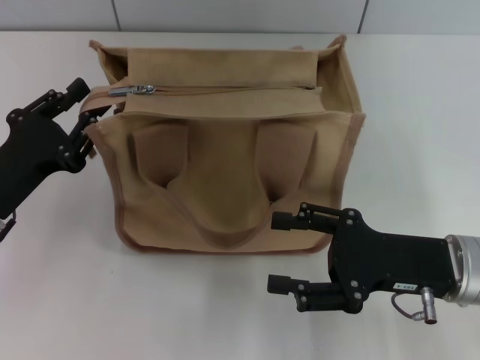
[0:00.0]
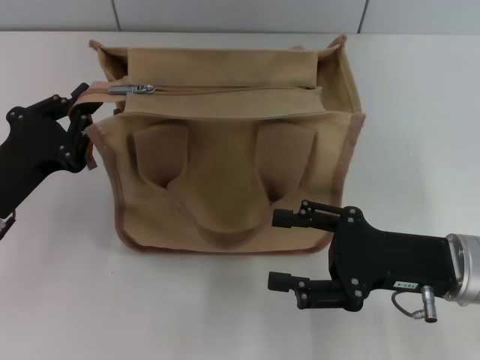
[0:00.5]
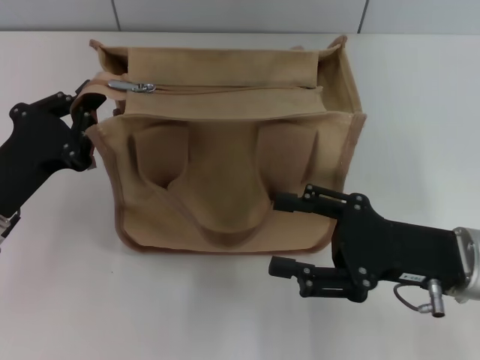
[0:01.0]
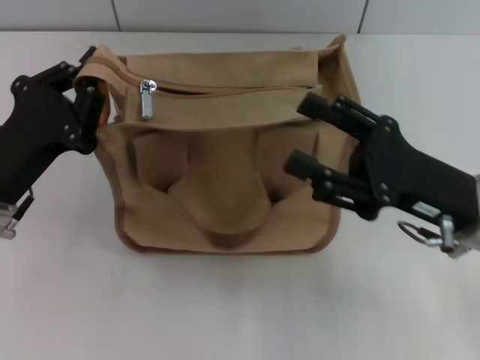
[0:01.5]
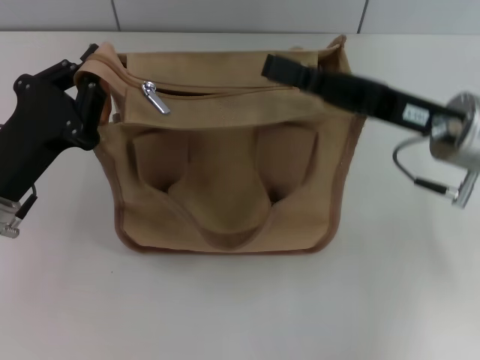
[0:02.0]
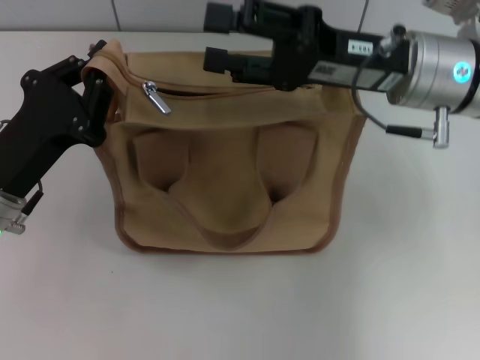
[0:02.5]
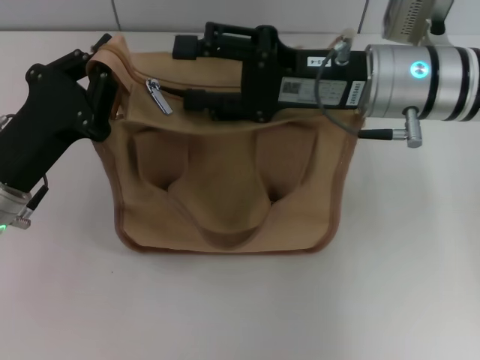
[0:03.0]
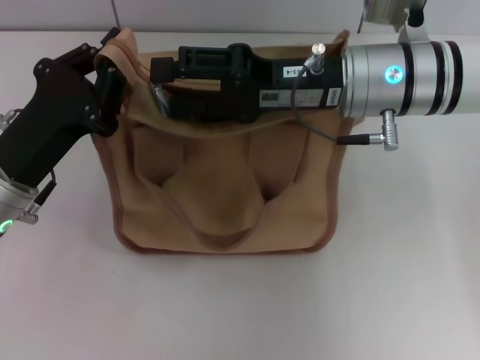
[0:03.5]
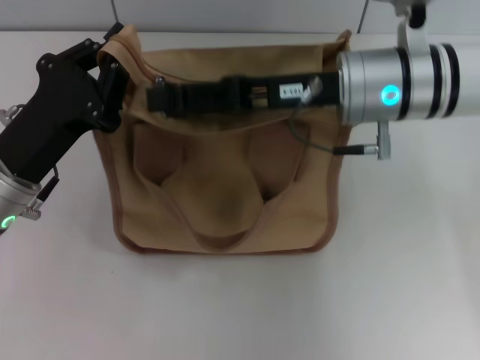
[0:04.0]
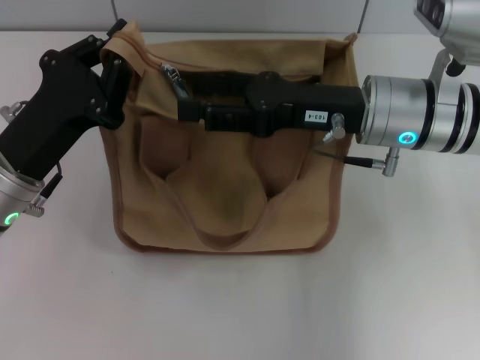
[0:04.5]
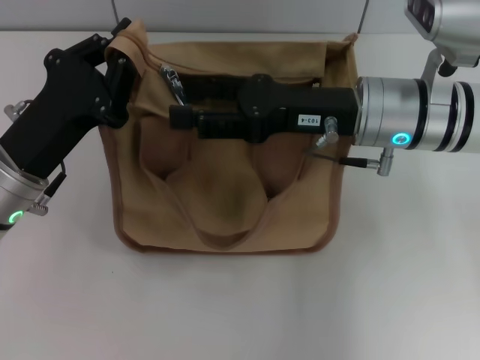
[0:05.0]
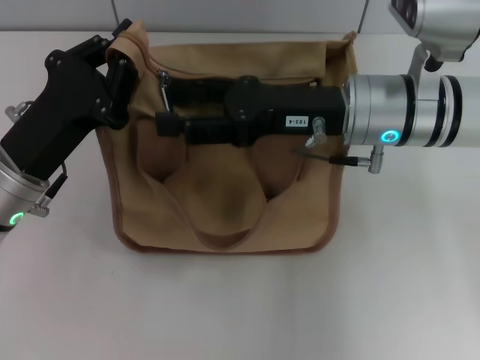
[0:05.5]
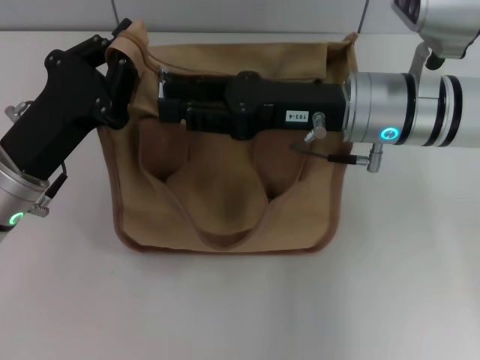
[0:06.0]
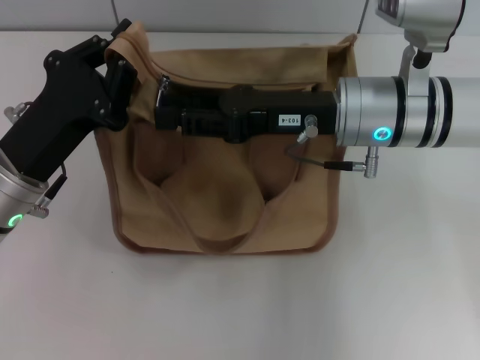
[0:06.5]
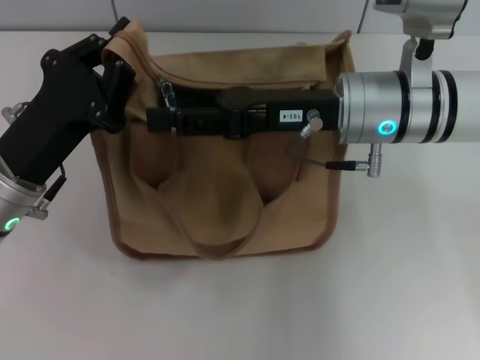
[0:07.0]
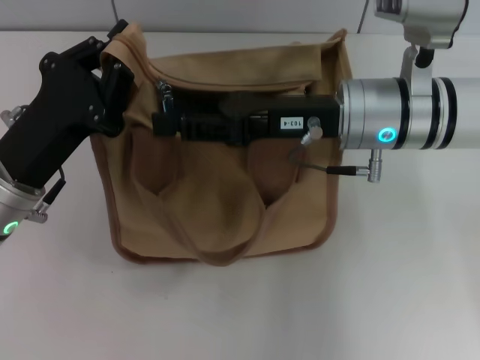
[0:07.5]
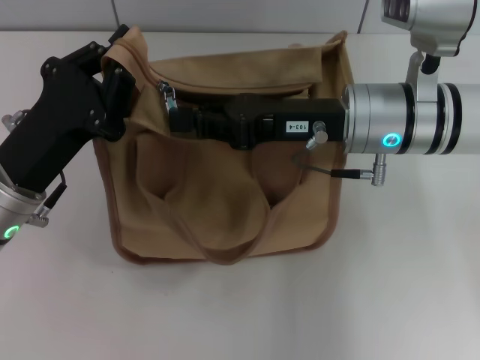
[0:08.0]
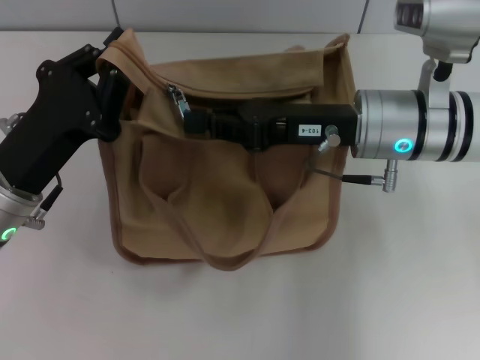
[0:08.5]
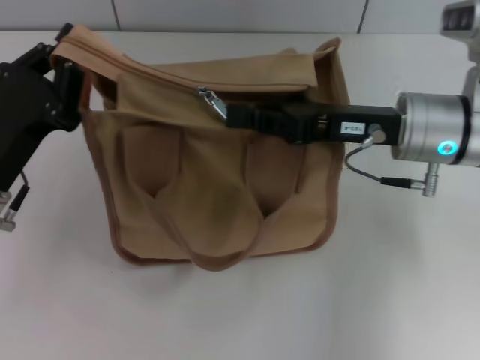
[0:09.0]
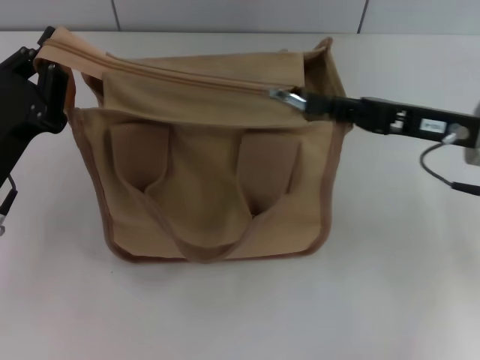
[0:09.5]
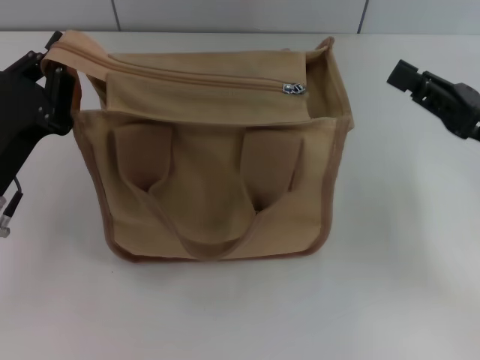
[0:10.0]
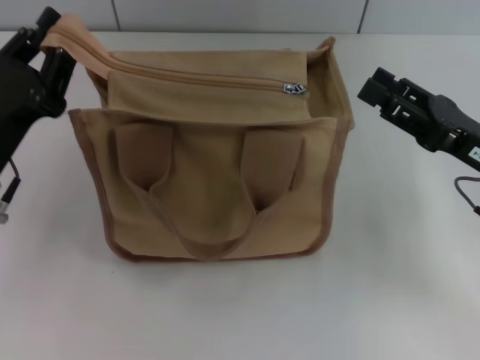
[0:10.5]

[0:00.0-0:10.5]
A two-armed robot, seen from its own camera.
Step, 0:00.0 to 0:09.5: Pull up the zipper with your right hand.
0:00.0 to 0:02.0: The right gripper goes approximately 10 cm forward and upward; the left gripper closes.
0:02.0 to 0:04.0: The right gripper moves to the left, roughly 10 cm.
0:04.0 to 0:06.5: The right gripper closes.
0:06.5 to 0:08.5: The right gripper closes its fingers.
0:08.5 to 0:10.5: The right gripper moves to the right and backward, roughly 15 cm, and opens up.

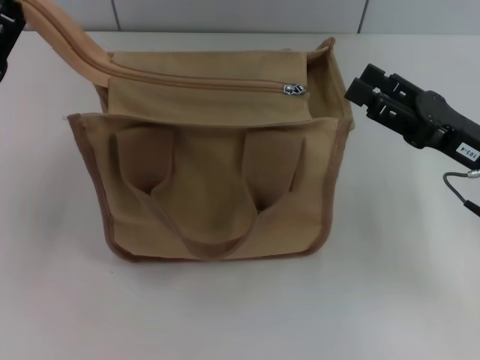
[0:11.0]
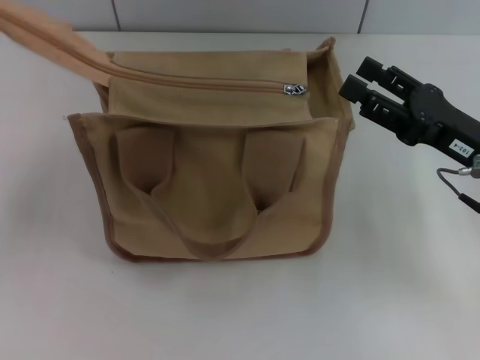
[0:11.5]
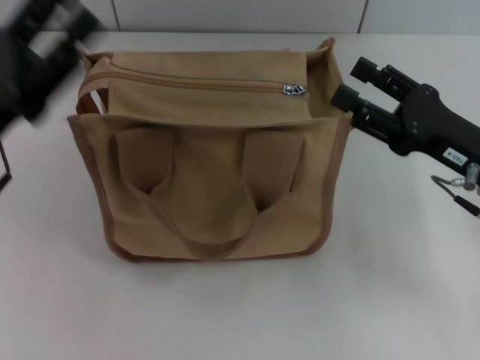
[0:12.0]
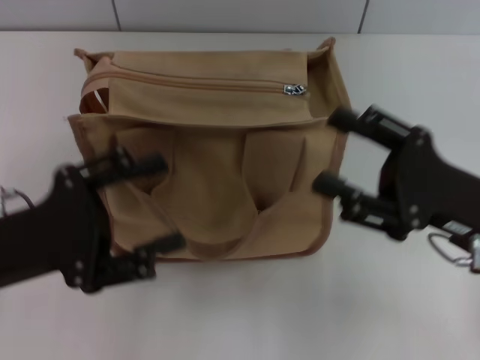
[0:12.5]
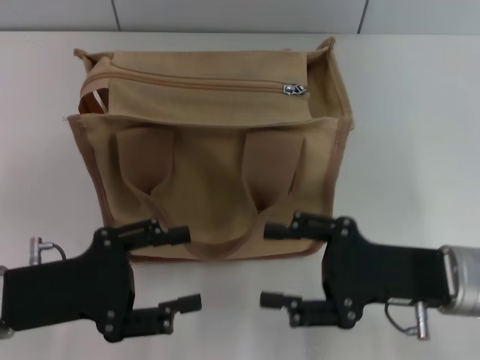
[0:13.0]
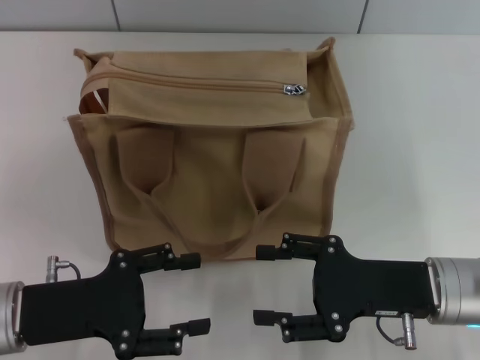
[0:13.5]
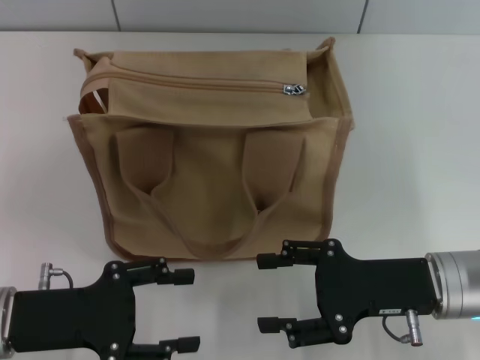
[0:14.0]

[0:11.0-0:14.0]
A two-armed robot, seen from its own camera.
0:12.5 to 0:14.0: The left gripper moves roughly 5 cm.

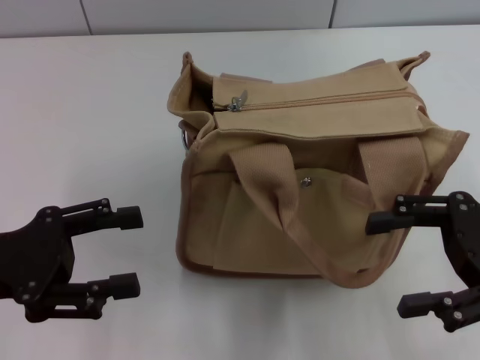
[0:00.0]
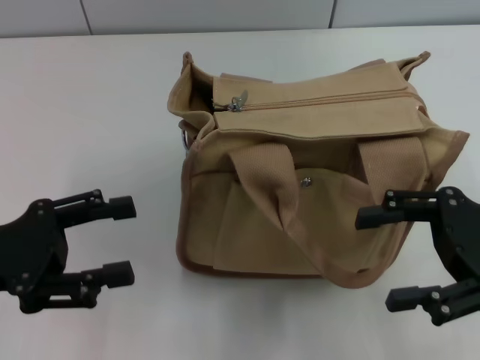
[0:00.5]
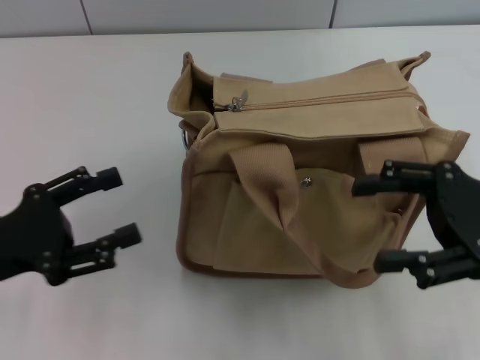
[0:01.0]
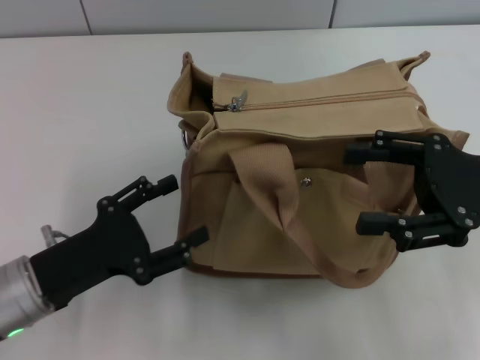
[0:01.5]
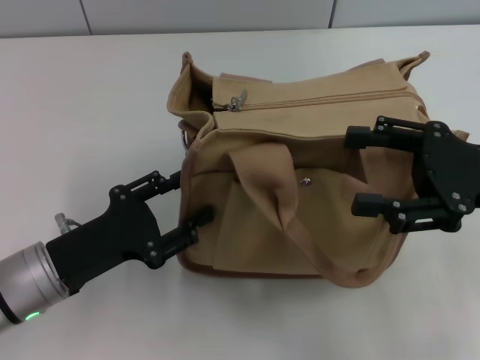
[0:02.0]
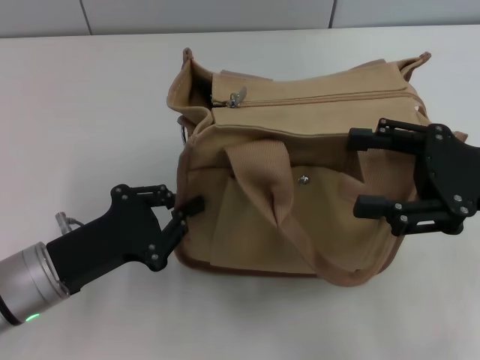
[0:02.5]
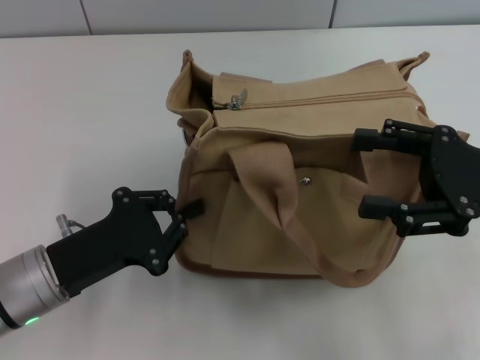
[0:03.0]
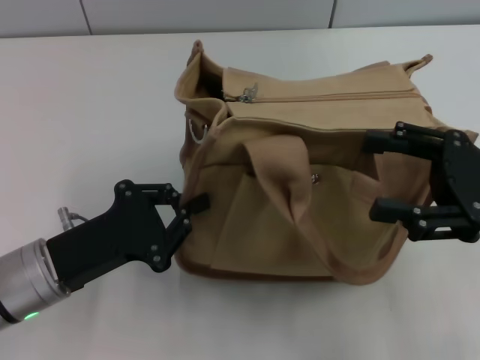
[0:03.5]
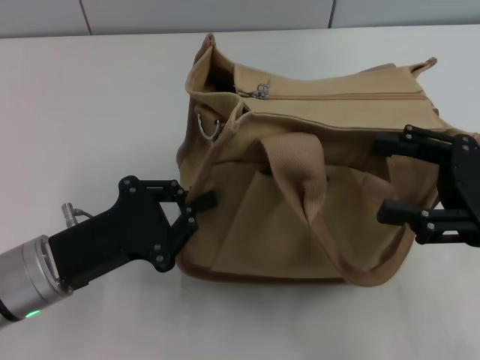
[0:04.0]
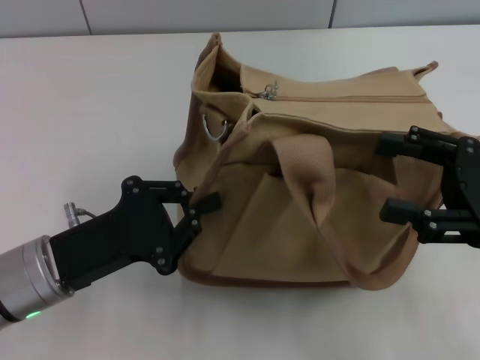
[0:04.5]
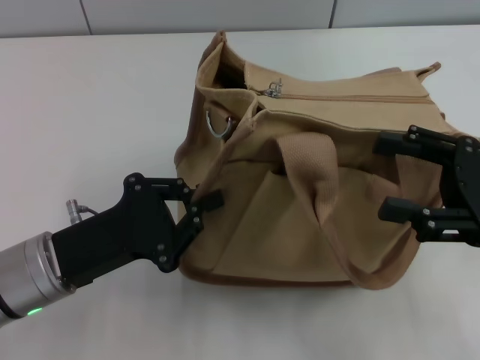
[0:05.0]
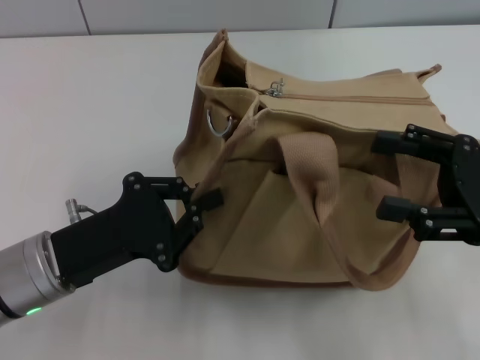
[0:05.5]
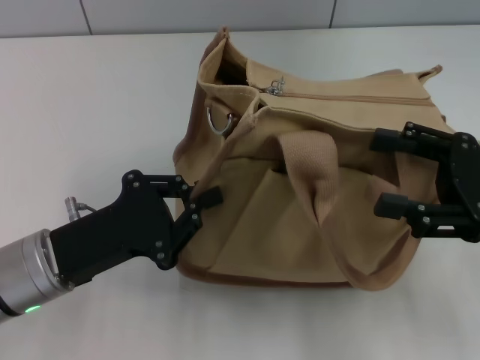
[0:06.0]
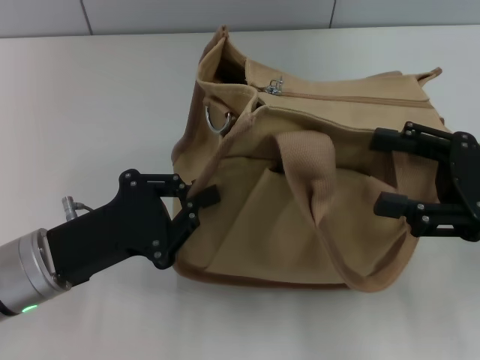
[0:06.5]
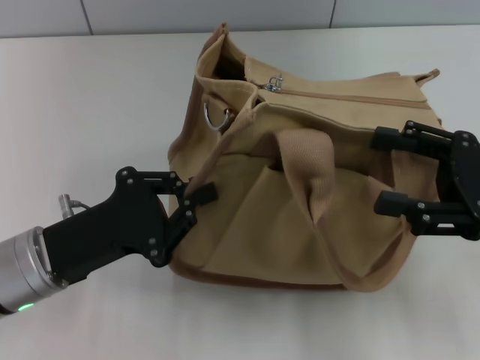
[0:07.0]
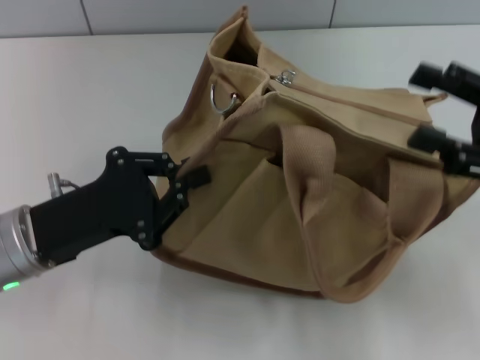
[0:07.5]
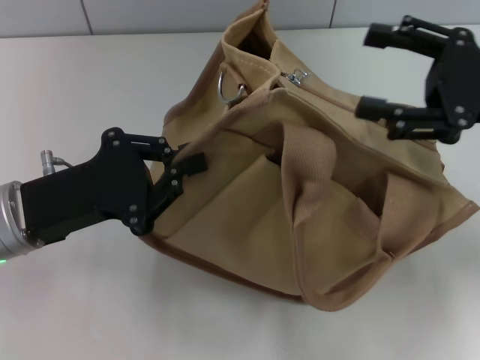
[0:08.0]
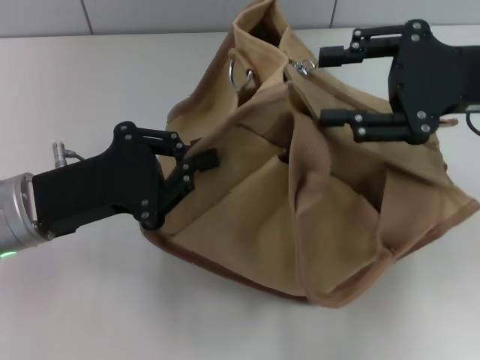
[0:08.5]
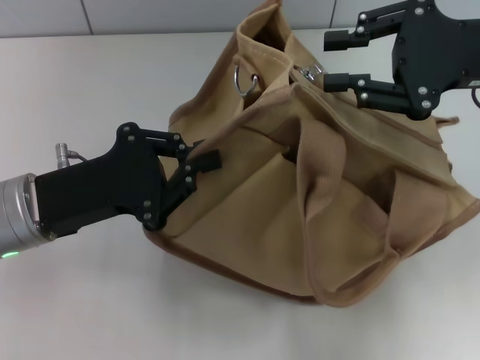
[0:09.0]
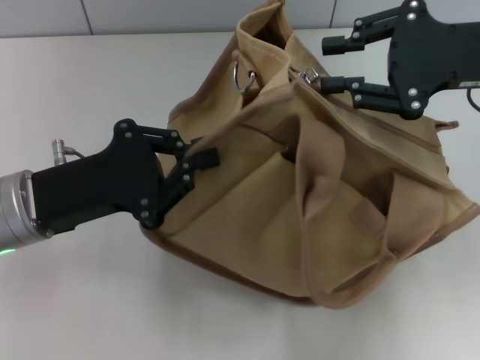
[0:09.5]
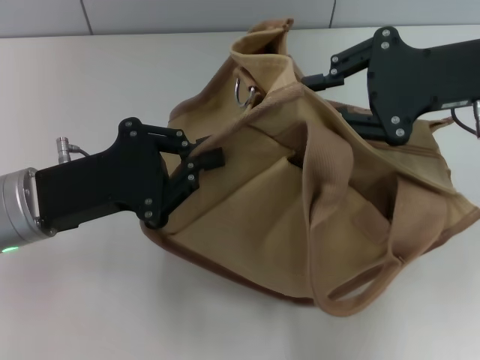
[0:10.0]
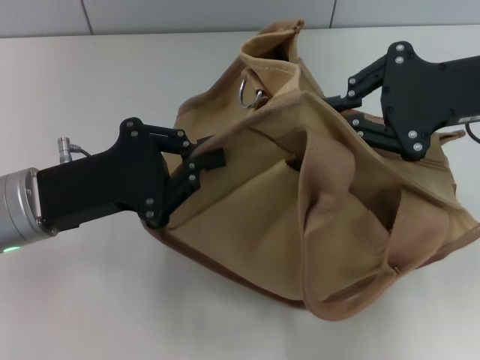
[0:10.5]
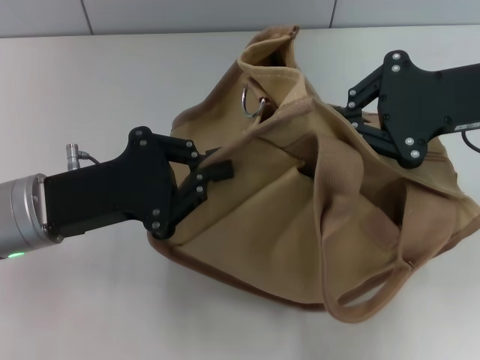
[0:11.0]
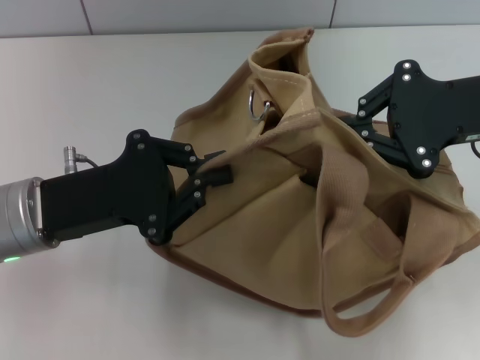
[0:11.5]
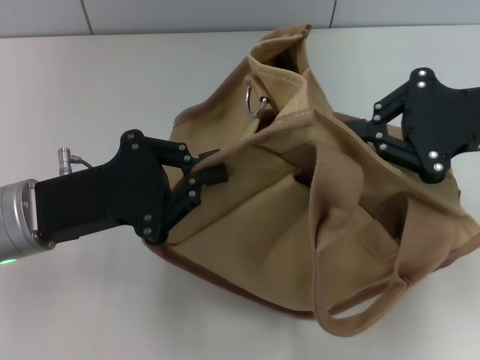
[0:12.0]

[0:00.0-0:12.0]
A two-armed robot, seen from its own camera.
0:00.0 to 0:02.0: The left gripper moves downward and to the right, some 10 cm.
0:02.0 to 0:04.0: The left gripper closes its fingers.
0:04.0 to 0:06.0: The two grippers keep their place.
0:06.0 to 0:08.0: The left gripper shifts by some 5 cm. Meanwhile the right gripper moves forward, roughly 5 cm.
0:08.0 to 0:10.0: The right gripper shifts by about 5 cm, and closes.
0:10.0 to 0:12.0: The right gripper closes up.
